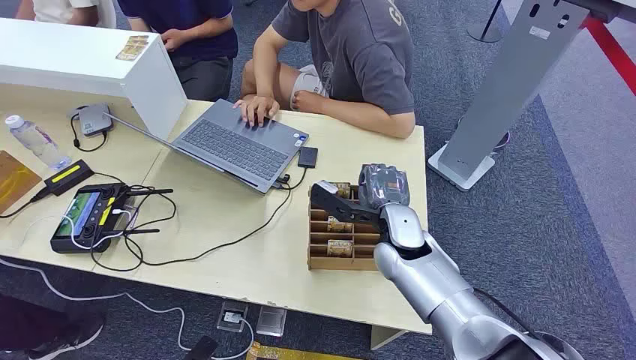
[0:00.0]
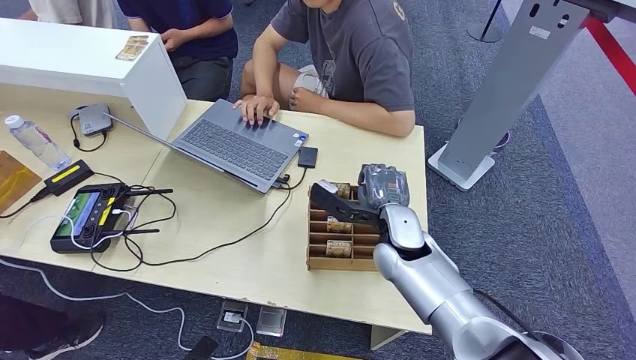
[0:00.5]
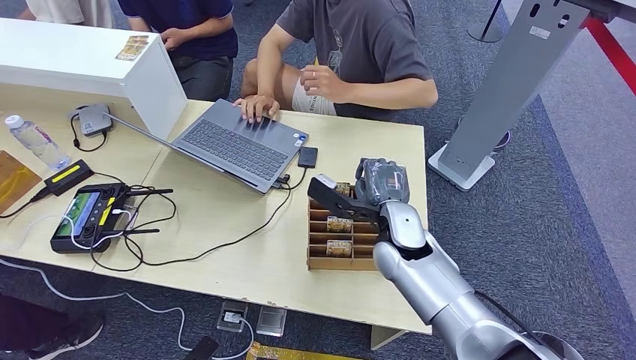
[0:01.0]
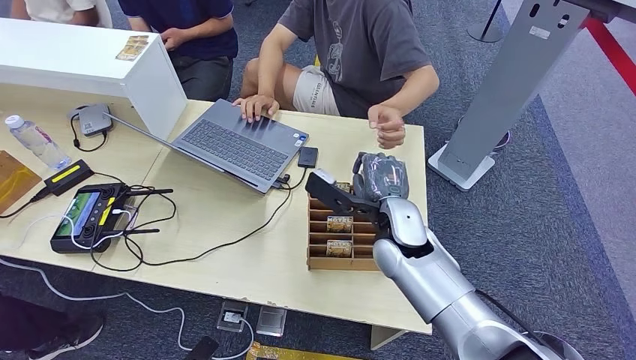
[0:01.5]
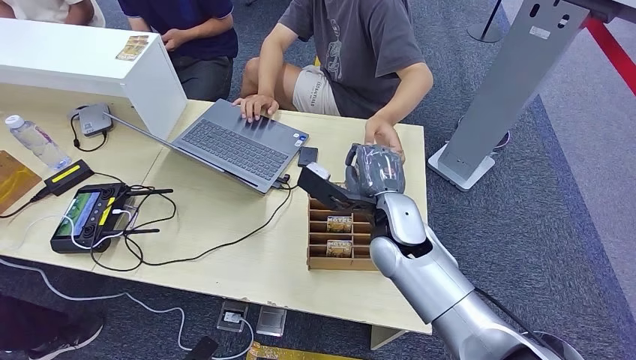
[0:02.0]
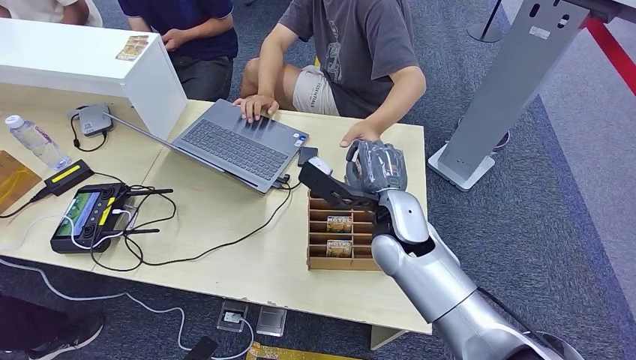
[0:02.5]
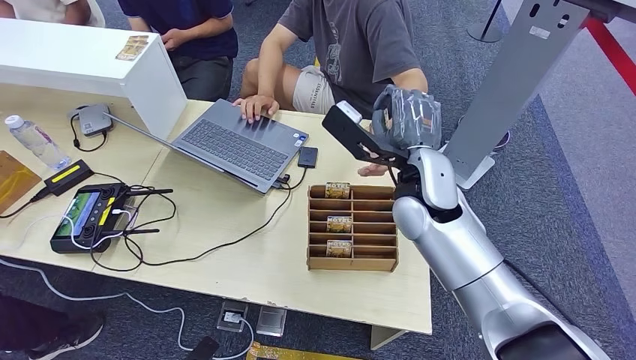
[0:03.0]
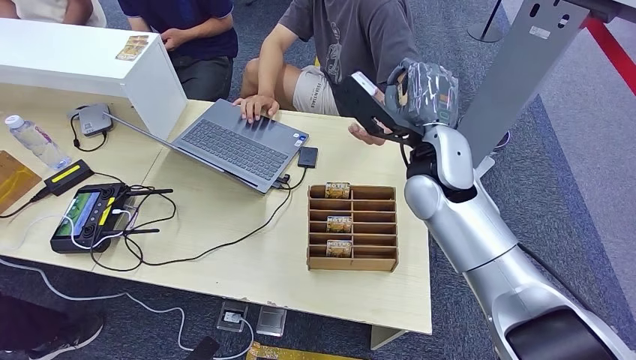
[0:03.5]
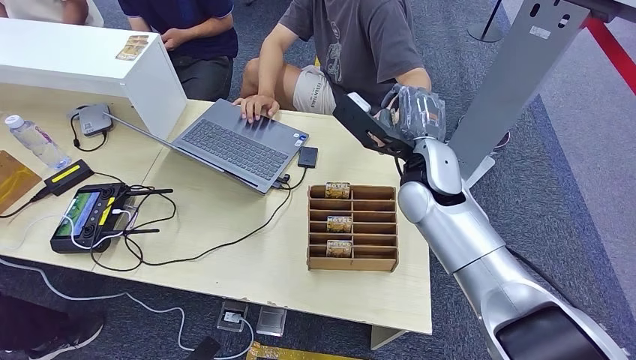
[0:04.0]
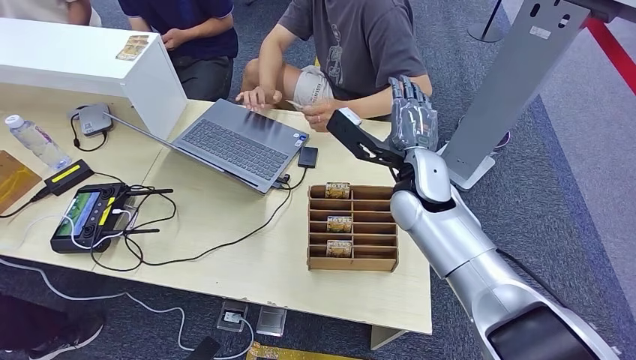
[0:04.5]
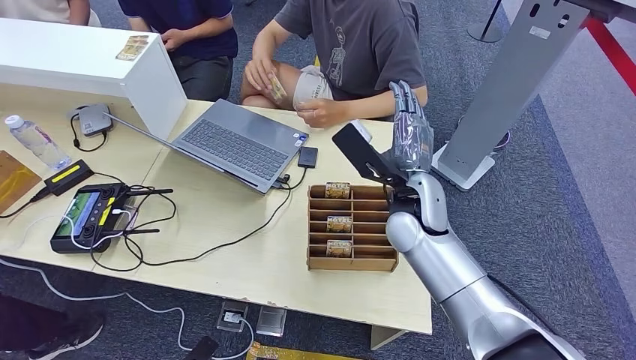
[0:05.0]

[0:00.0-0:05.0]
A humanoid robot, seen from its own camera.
Step, 0:00.0 to 0:01.5: Pick up the room card from the card holder.
Step, 0:02.0 to 0:05.0: Hand the room card to the target.
0:02.5 to 0:05.0: The right hand goes upward and returns, approximately 10 cm each way.
